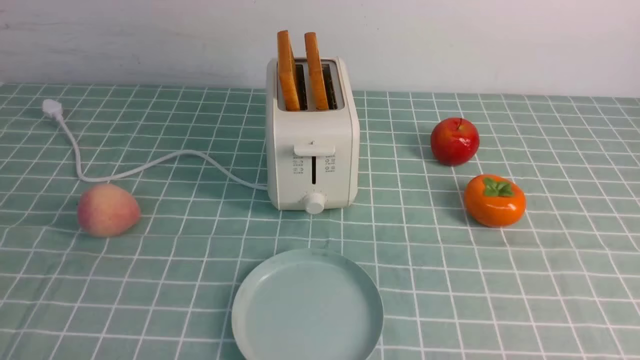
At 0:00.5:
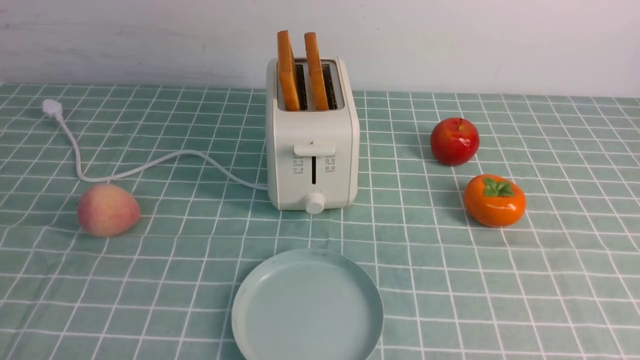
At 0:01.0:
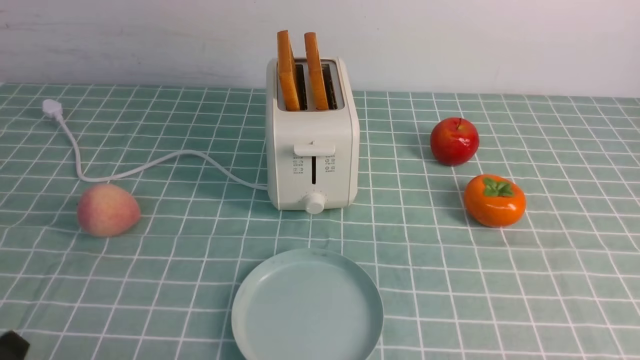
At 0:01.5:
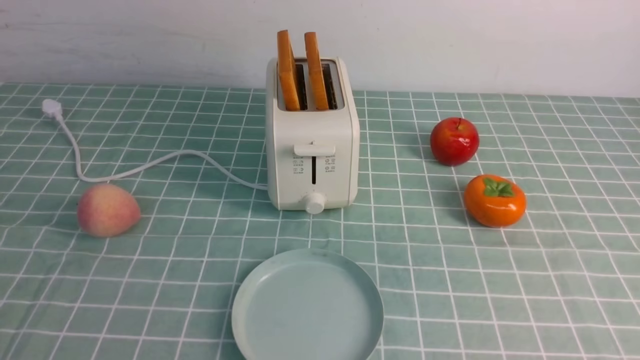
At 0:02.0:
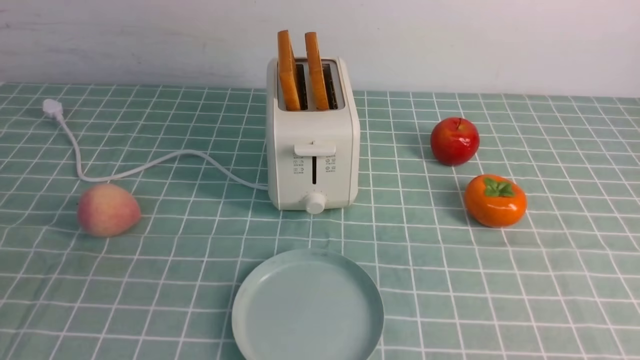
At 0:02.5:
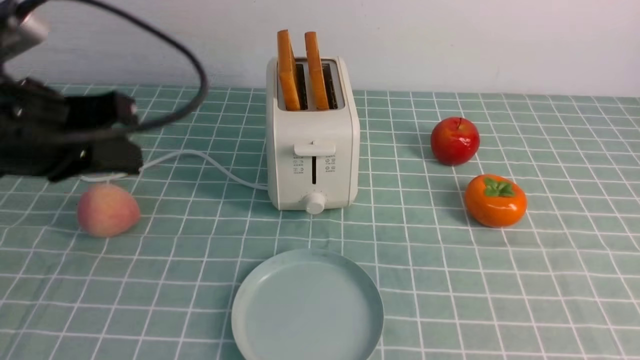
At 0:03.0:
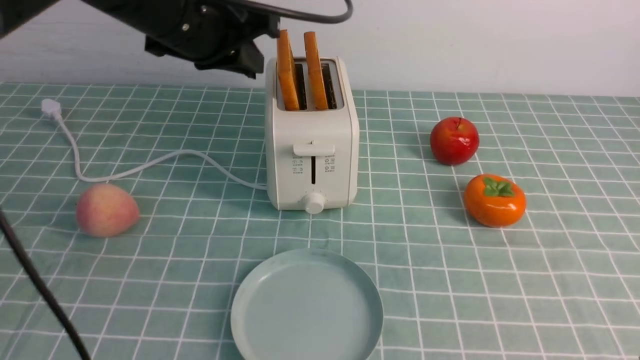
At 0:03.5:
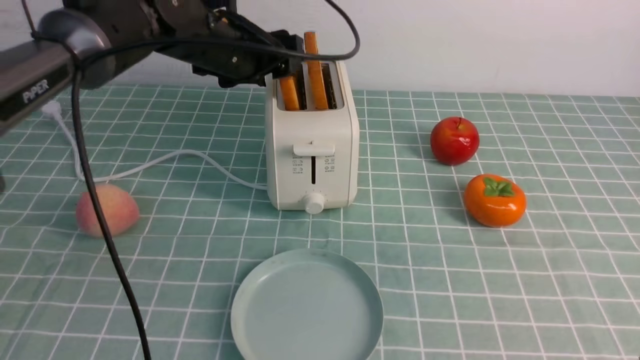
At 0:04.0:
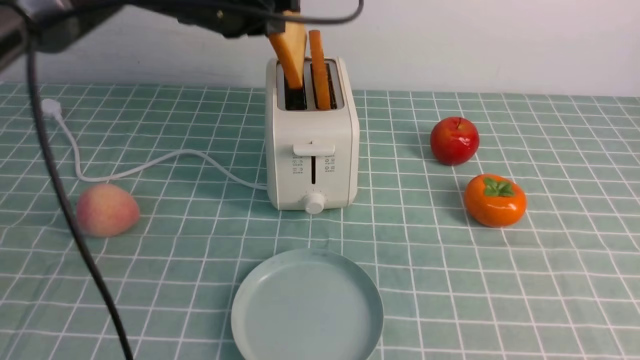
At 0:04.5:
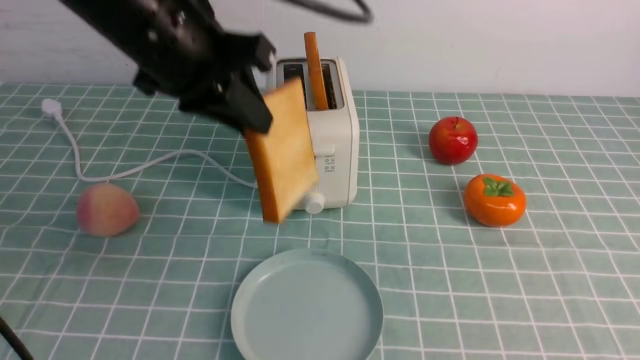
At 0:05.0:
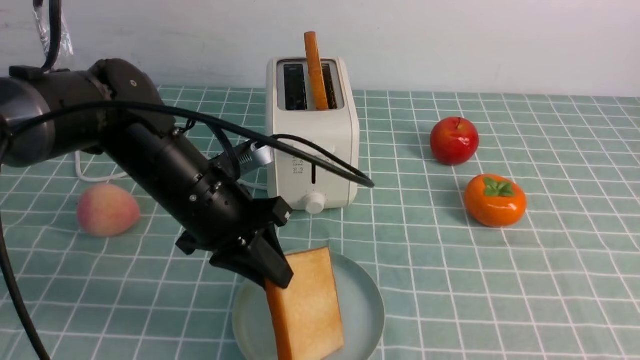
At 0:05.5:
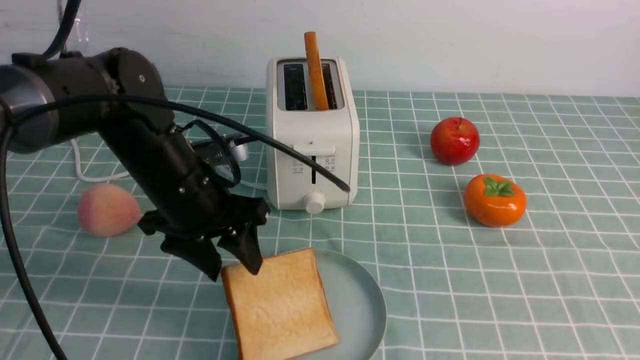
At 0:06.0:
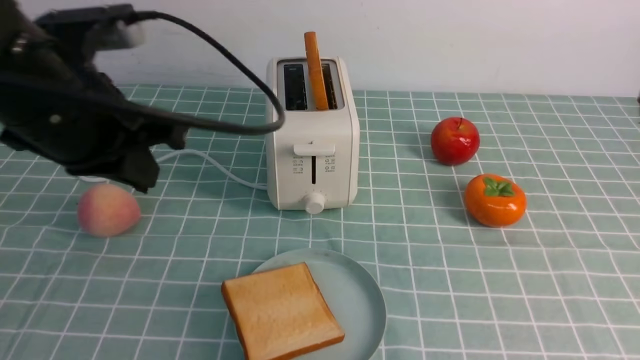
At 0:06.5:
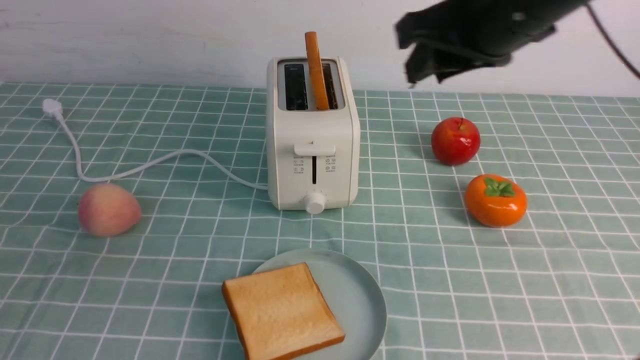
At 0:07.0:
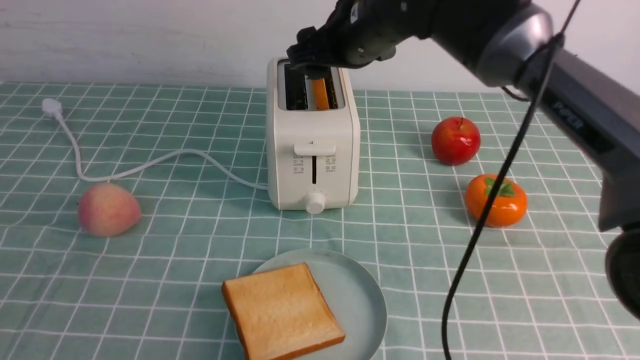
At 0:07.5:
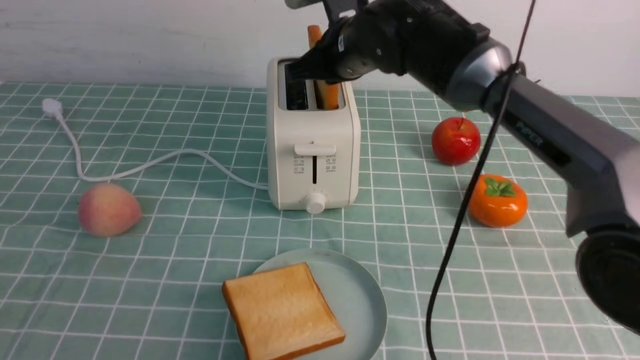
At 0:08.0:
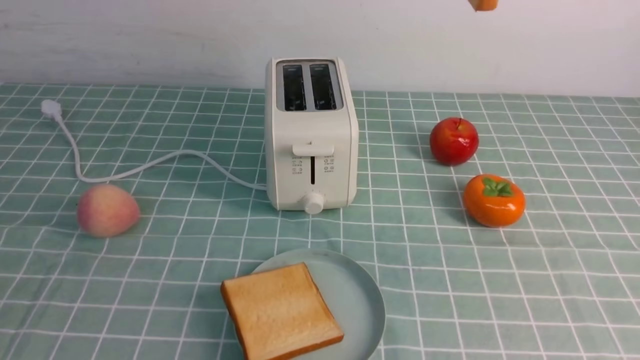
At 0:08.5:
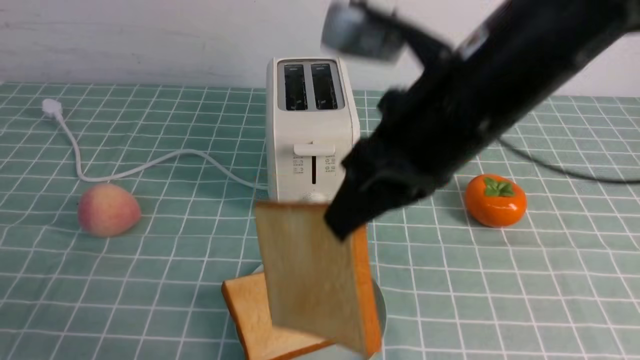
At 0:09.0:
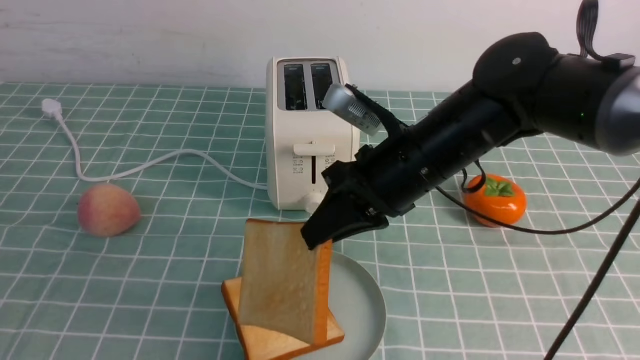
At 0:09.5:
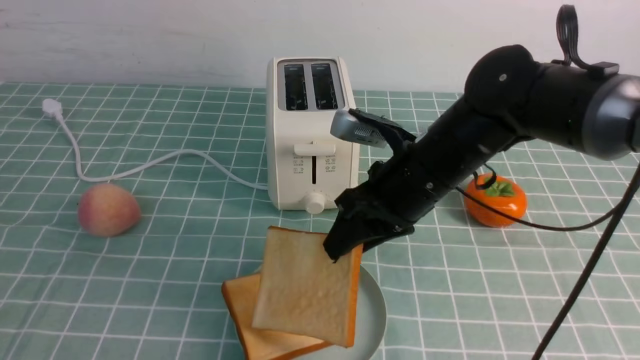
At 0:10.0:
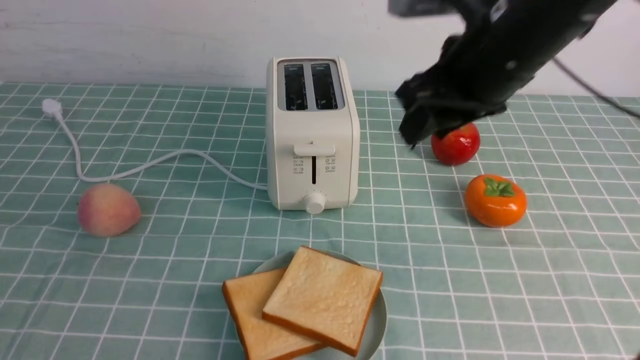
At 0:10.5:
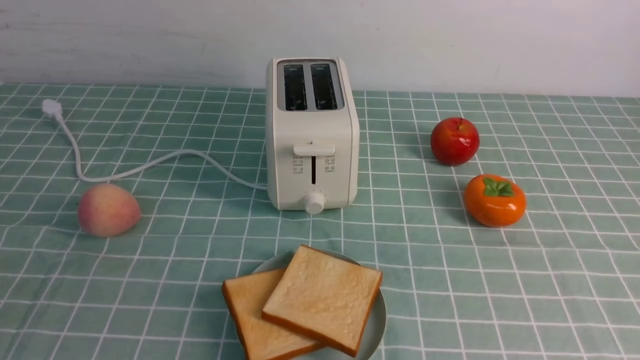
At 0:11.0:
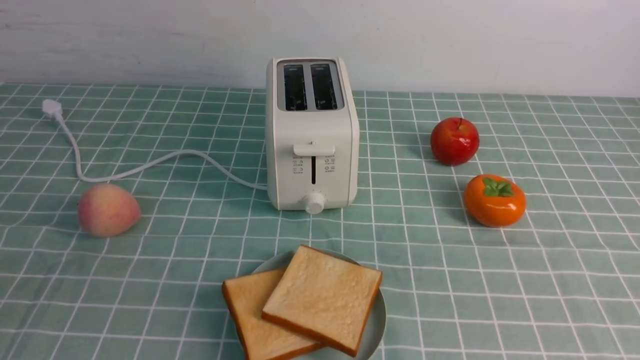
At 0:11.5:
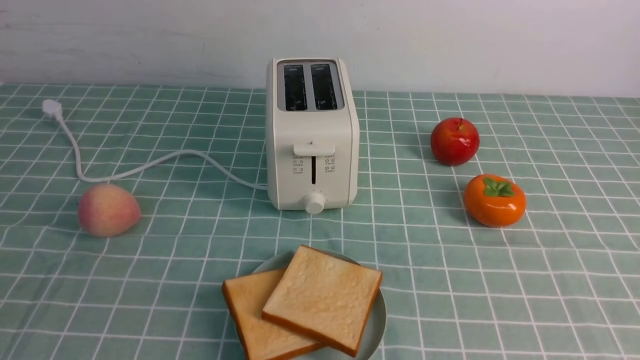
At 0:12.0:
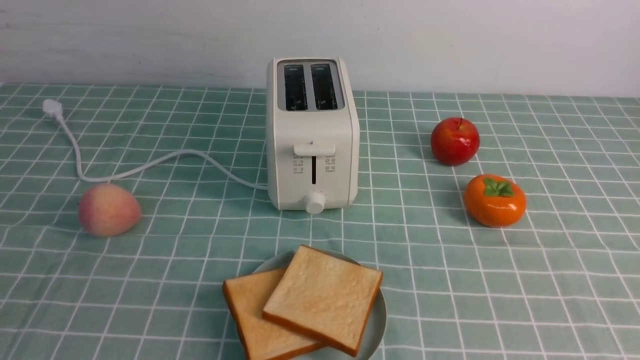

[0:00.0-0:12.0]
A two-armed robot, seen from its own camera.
Task of the whole recording: take toasted bread from bread machine on blue coffee table place on plate.
Step, 0:00.0 to 0:04.0: use the right arm to take out a slice of bread.
Step, 0:04.5 to 0:06.0: use the right arm to put a slice of bread into the plate.
0:02.0 to 0:04.0: The left gripper moves forward, about 35 cm, and opens and closes again. The right gripper is displaced upward by roughly 10 cm.
0:04.0 to 0:06.0: The right gripper shifts some 20 cm upward and forward, while the left gripper travels backward by roughly 20 cm, and opens, then closes once more.
0:06.0 to 0:08.0: The right gripper is displaced to the left and upward by about 15 cm, goes forward and returns, about 25 cm each way, and opens, then closes again; the left gripper shifts roughly 25 cm backward.
0:08.0 to 0:10.0: The right gripper goes about 10 cm downward, and opens.
0:10.0 to 0:12.0: The right gripper moves backward and to the right, about 30 cm, and closes, while the left gripper changes place by some 5 cm.
